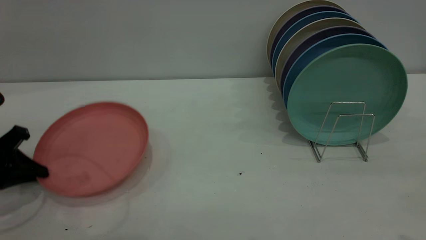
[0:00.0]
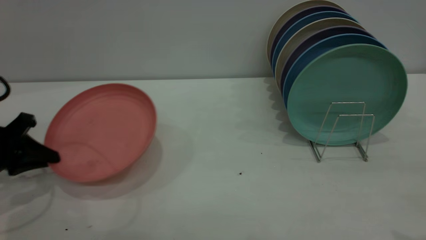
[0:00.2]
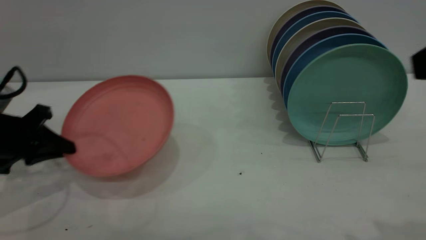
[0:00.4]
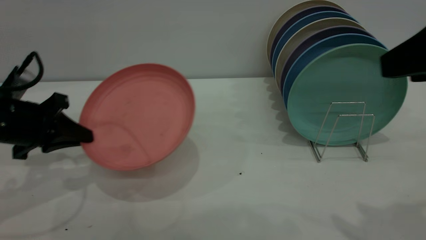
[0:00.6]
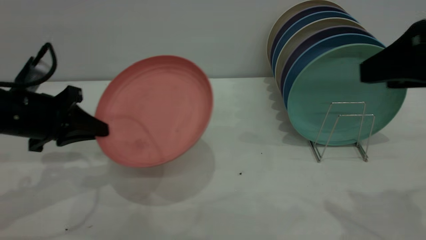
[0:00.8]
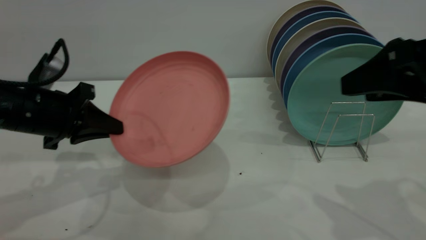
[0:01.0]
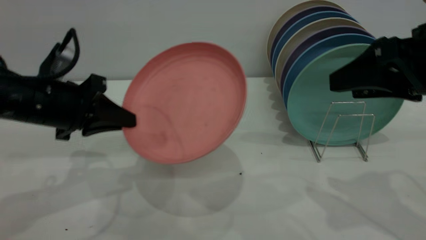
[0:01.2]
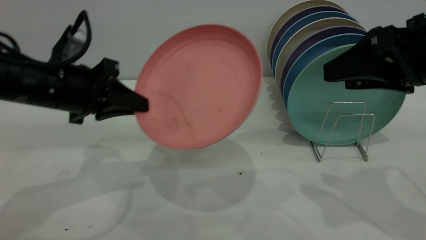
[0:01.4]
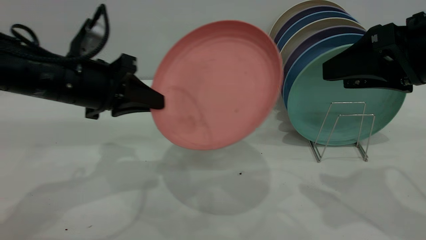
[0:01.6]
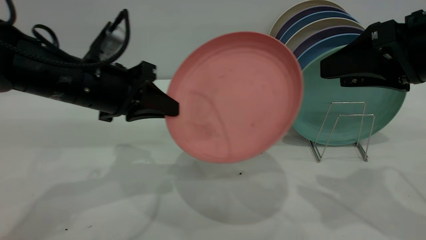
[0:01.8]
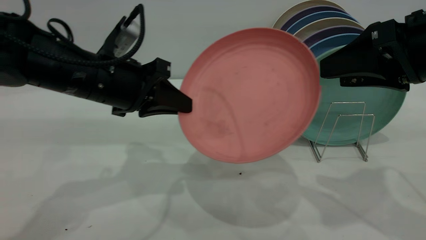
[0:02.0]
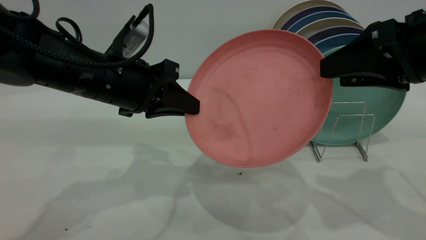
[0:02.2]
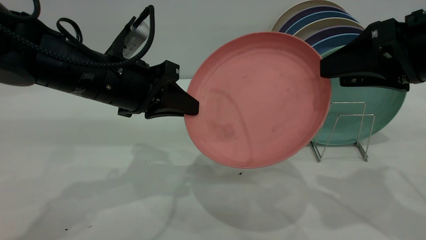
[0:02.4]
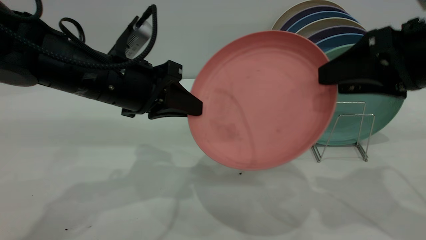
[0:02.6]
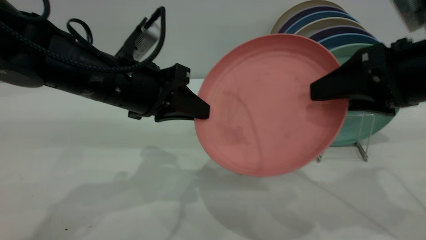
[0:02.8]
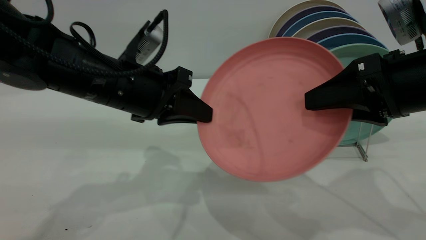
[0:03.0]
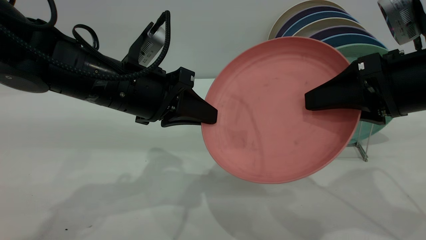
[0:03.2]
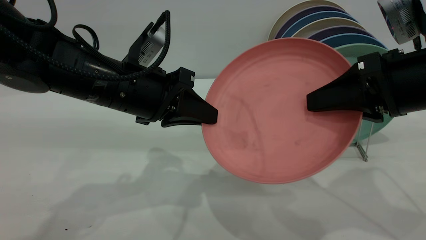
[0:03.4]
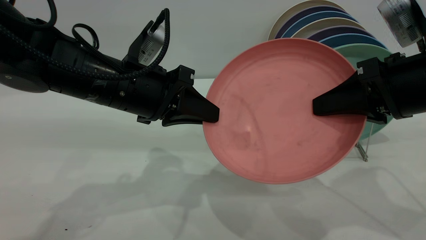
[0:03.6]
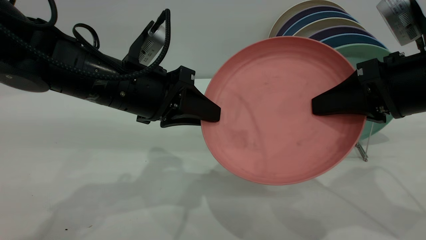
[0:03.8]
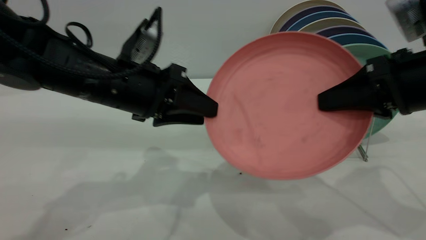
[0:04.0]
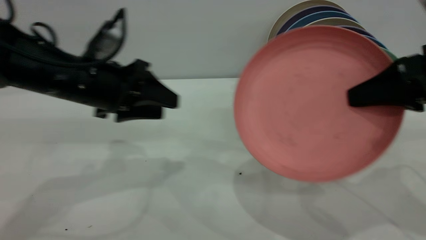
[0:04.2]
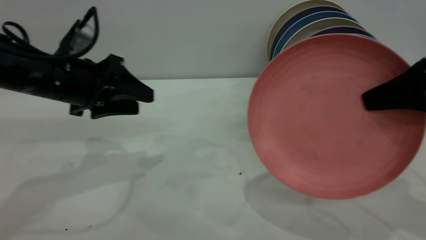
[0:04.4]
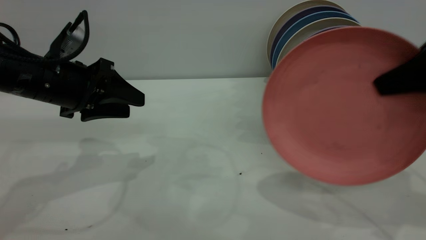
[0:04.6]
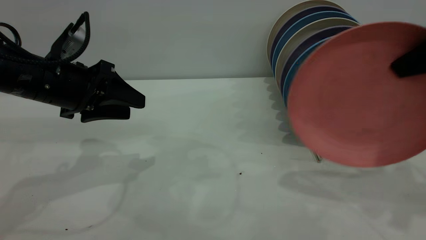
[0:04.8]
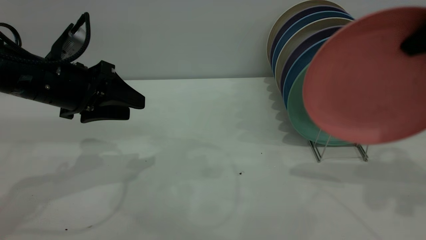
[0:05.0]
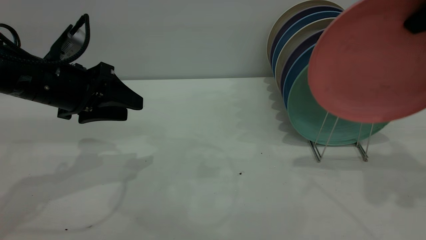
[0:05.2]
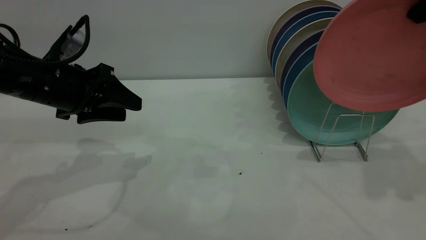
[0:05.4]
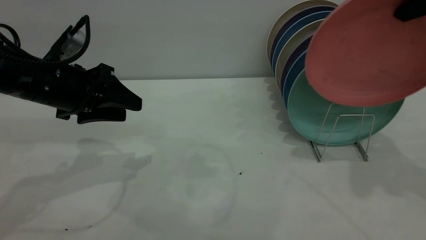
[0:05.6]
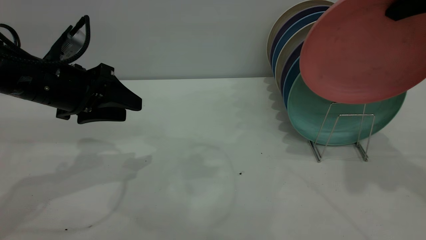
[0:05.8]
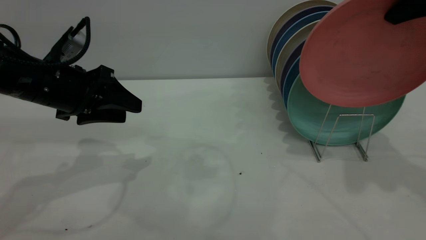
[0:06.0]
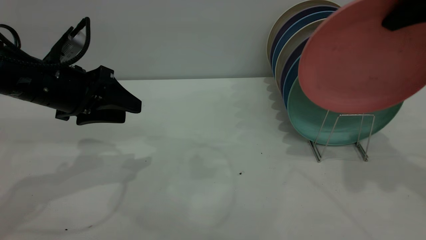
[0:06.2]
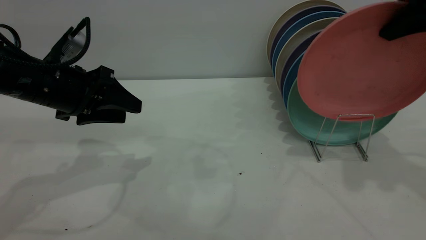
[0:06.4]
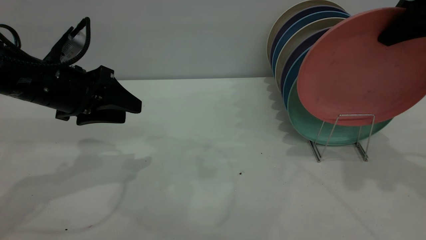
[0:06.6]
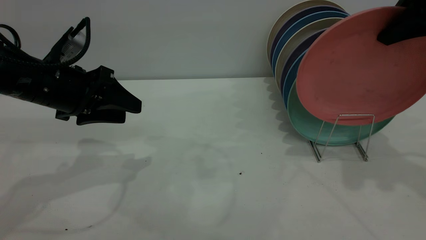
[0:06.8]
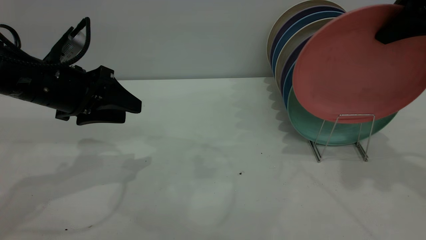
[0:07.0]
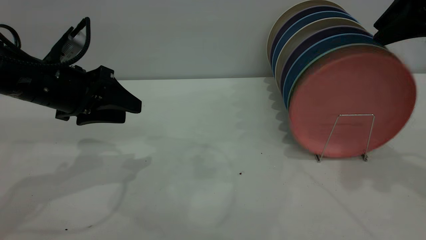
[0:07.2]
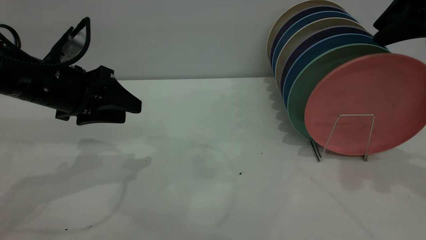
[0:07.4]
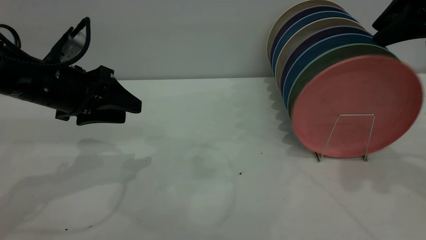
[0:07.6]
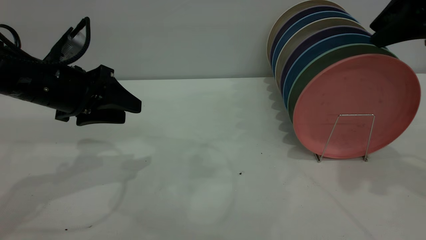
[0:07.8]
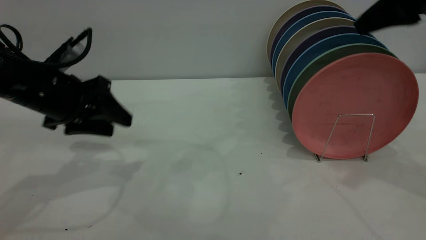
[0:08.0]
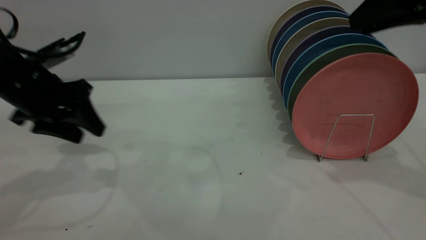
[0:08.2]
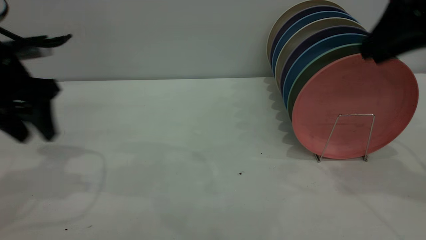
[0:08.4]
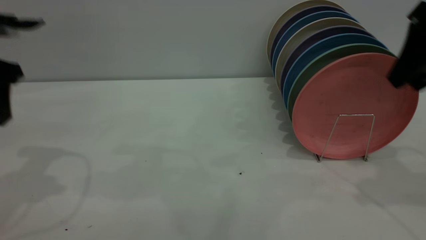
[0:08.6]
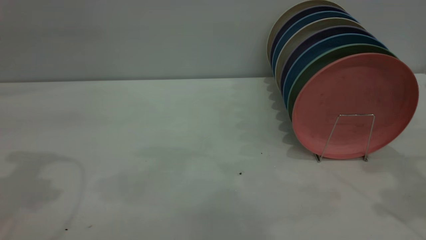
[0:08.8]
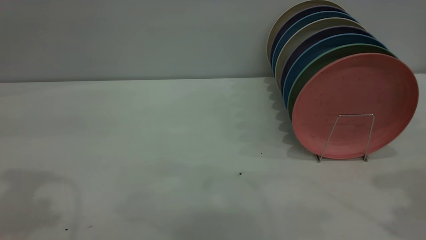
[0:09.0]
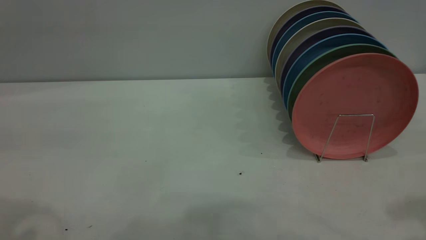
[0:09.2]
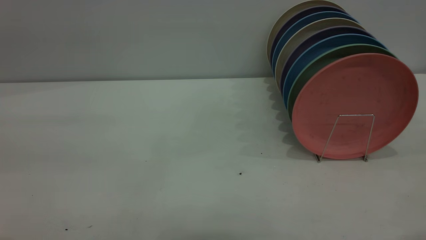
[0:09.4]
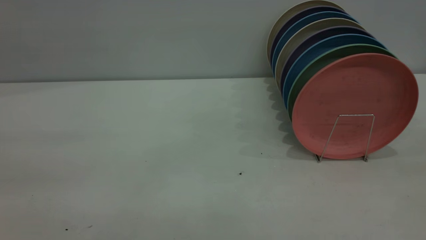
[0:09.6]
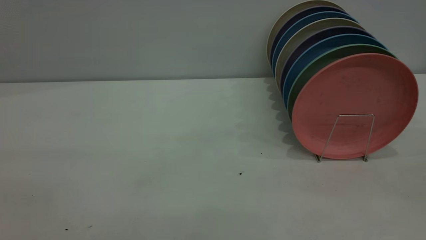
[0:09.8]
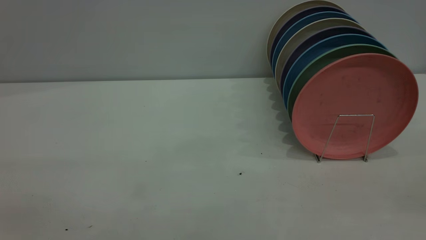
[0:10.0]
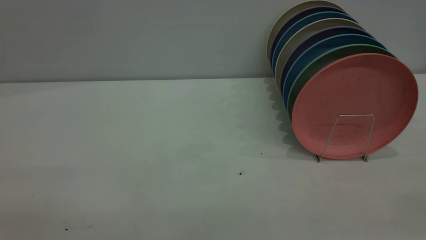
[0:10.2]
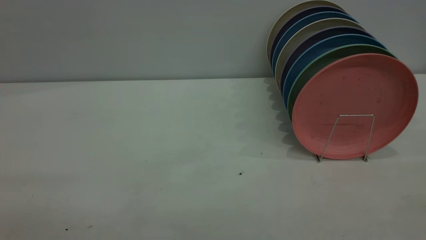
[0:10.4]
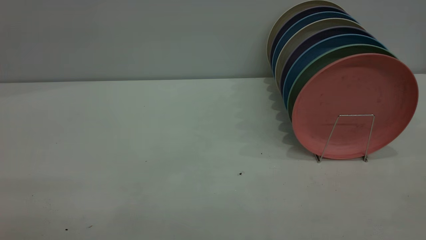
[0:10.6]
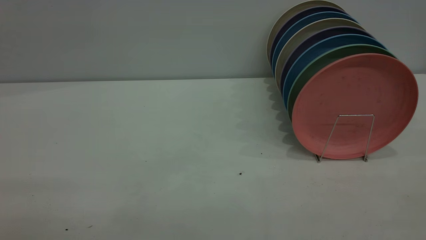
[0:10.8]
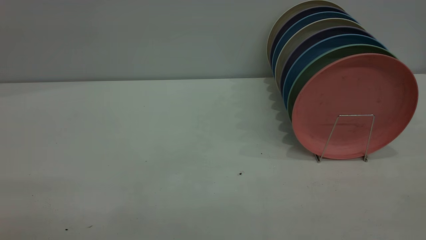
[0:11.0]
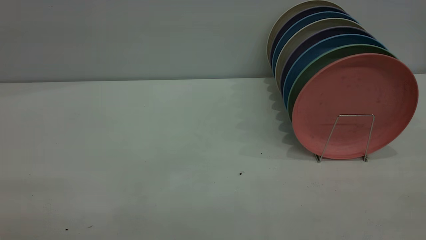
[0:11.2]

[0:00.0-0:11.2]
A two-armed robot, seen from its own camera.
Task of the whole recording: the left gripper grasp the pink plate, the left gripper pass the pink plate to the right gripper, and the right gripper place the pink plate on the plate rack.
Step, 0:00.2 to 0:04.0: Pass the plate from the left gripper to the right gripper.
Step, 0:04.2 to 0:08.6: Place the plate on the shelf.
0:00.0 to 0:01.6: The right gripper heads forward and downward, covering approximately 15 cm; the left gripper shifts roughly 20 cm to the right and upward.
0:01.6 to 0:03.2: The left gripper heads to the right, covering approximately 5 cm.
0:03.2 to 0:04.8: The right gripper goes approximately 10 cm upward and to the right, and closes up, while the left gripper is displaced to the left by approximately 10 cm, and opens its fingers.
0:04.8 to 0:06.4: The right gripper heads forward, covering about 5 cm.
0:08.0 to 0:09.6: The right gripper moves backward, roughly 25 cm, and opens up. Meanwhile the left gripper moves backward and upward, approximately 35 cm.

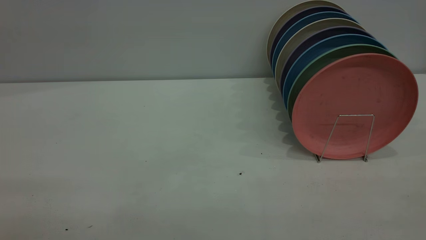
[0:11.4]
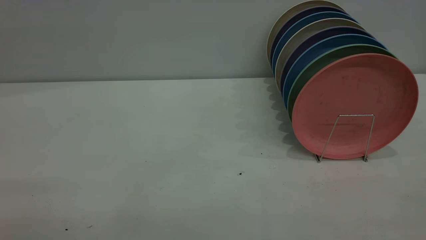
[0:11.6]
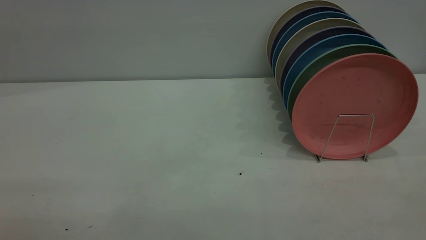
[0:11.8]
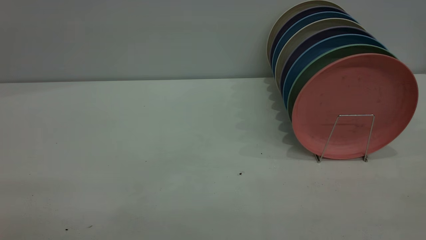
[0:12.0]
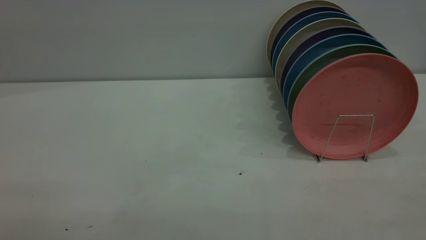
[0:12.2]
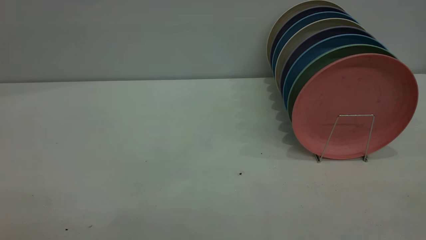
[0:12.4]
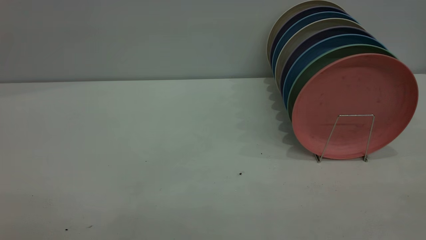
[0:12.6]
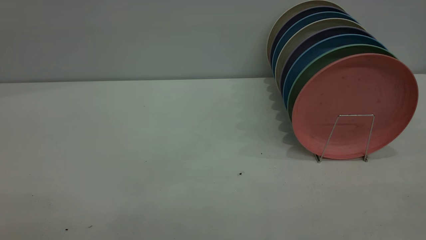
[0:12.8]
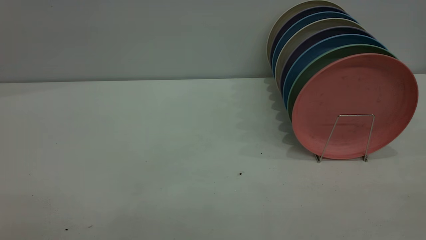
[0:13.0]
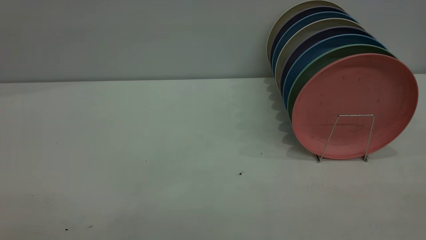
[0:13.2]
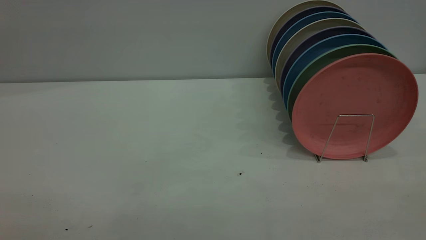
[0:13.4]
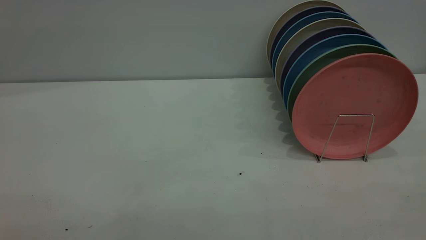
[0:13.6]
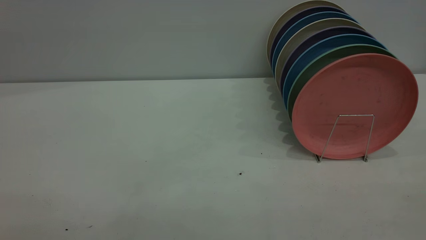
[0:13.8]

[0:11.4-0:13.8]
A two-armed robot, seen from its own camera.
Task of the whole recording: the left gripper grasp the pink plate, the left gripper pass the pink plate to the right gripper, and the right gripper place the pink plate on the plate rack.
0:12.6 to 0:13.8: Both grippers stay put.

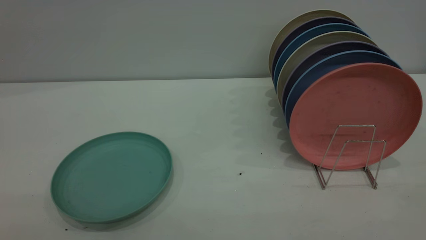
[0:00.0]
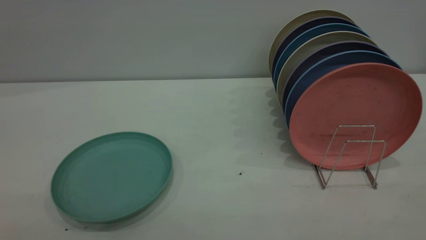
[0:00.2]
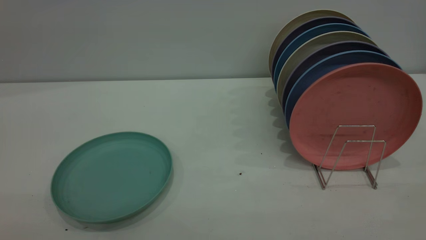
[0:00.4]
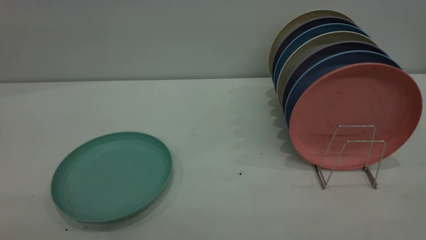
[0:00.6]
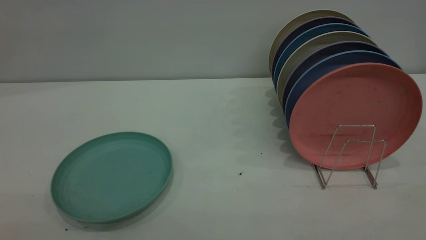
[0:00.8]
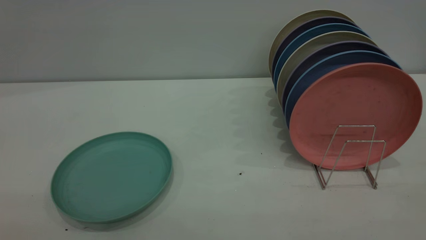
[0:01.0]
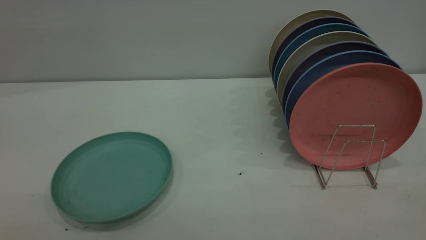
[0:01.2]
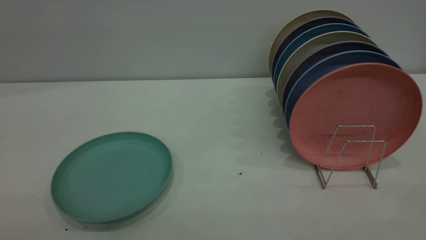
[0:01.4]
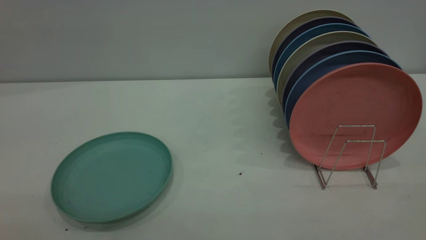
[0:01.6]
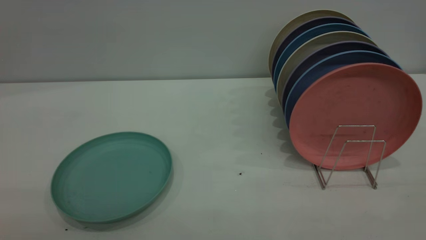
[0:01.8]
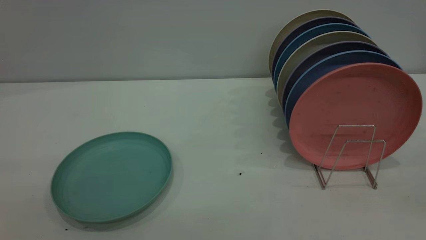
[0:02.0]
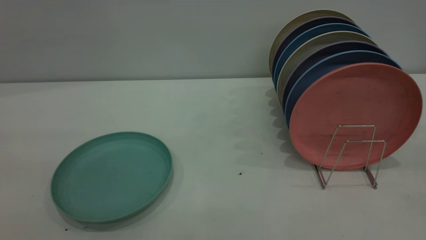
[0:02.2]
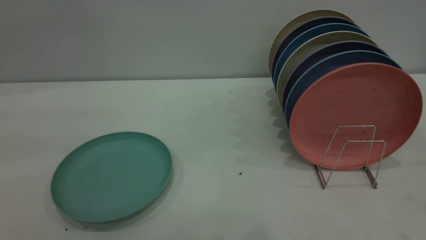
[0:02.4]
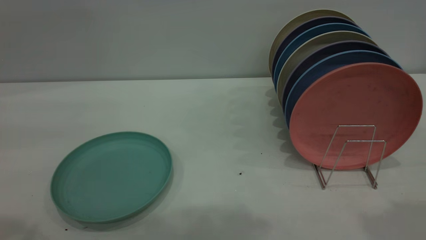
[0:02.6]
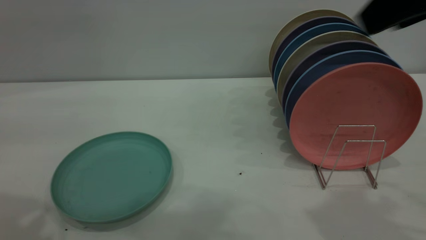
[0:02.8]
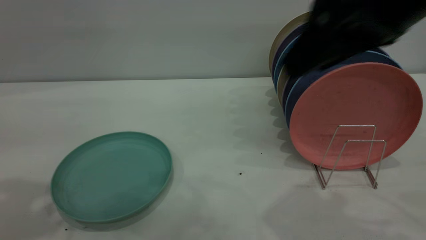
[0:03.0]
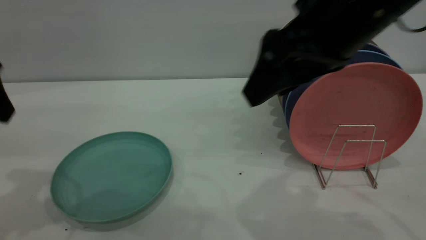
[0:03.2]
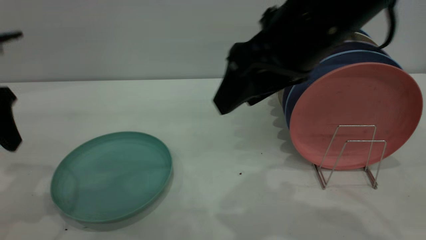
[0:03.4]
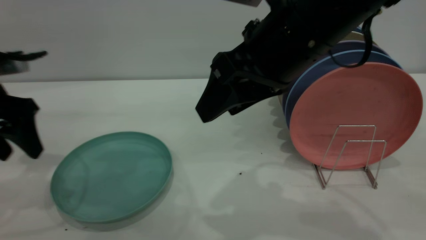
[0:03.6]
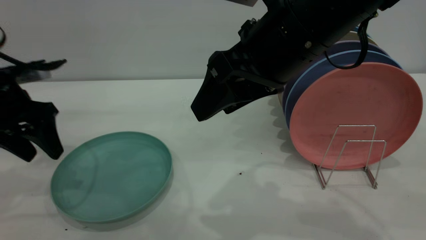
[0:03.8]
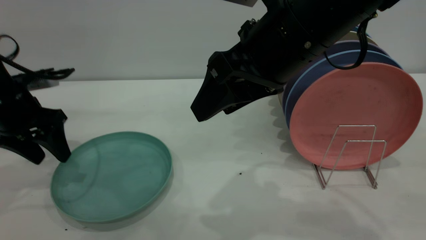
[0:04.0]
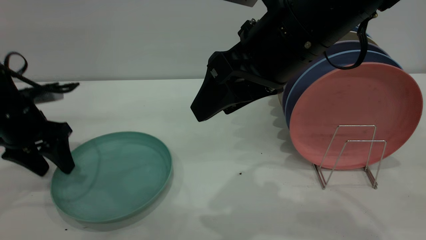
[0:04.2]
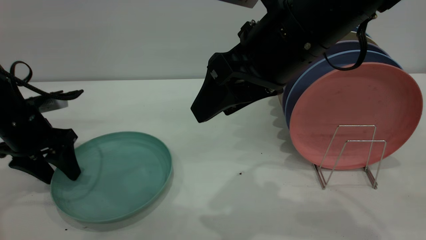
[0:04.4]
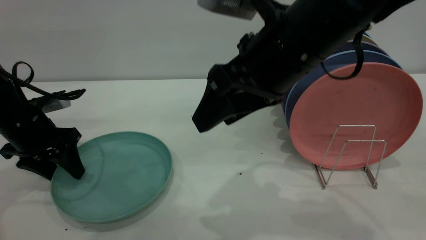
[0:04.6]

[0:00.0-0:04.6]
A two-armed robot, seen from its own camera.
Task of the whole recording: the left gripper grasp the green plate, the left gripper pass the green plate to the right gripper, and the right gripper place the green plate on the plate rack.
0:00.0 to 0:01.6: Neither gripper changes place.
0:01.6 to 0:03.0: The right gripper moves forward and to the left, some 30 cm.
0:03.0 to 0:04.6: The left gripper is displaced downward and forward by roughly 25 cm; the right gripper heads downward and to the left, covering about 10 cm.
